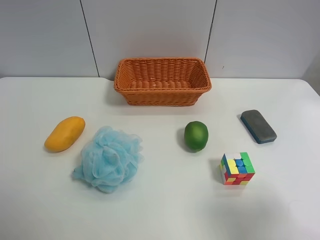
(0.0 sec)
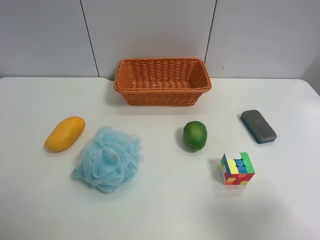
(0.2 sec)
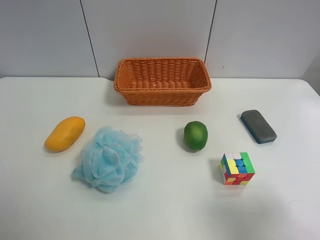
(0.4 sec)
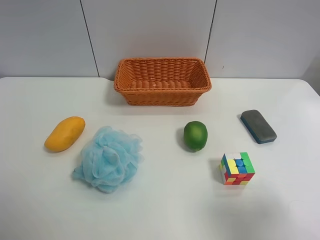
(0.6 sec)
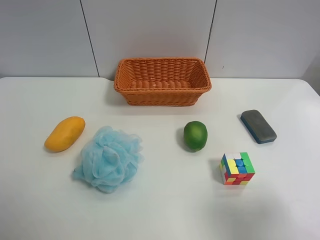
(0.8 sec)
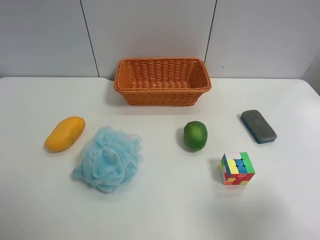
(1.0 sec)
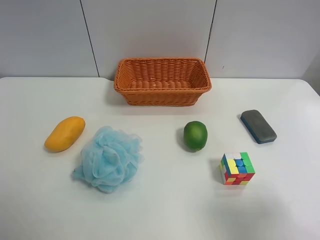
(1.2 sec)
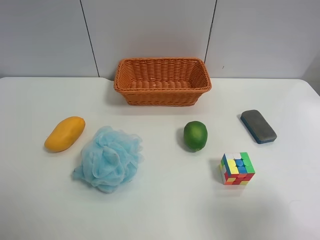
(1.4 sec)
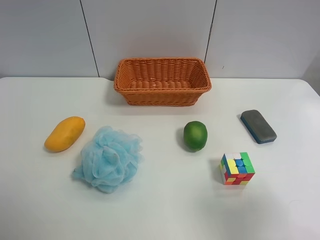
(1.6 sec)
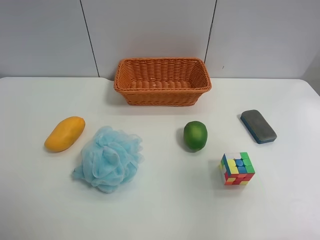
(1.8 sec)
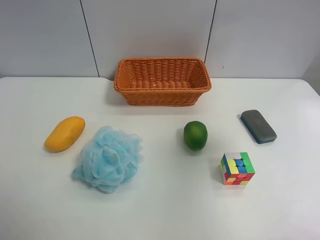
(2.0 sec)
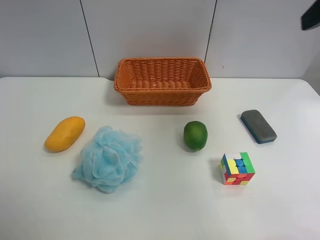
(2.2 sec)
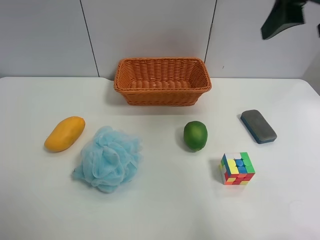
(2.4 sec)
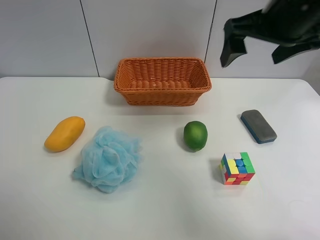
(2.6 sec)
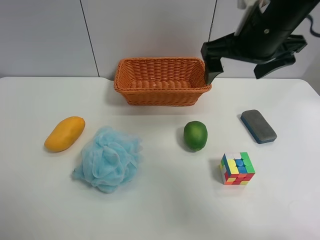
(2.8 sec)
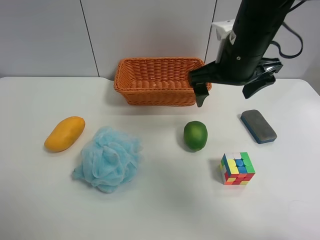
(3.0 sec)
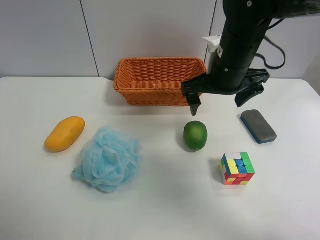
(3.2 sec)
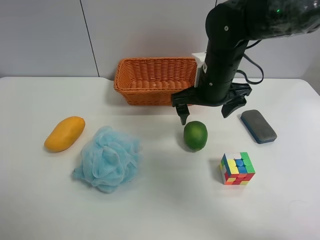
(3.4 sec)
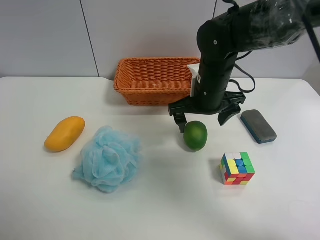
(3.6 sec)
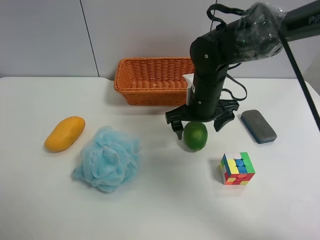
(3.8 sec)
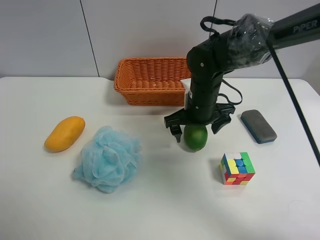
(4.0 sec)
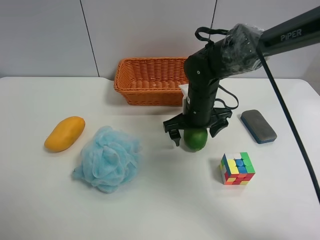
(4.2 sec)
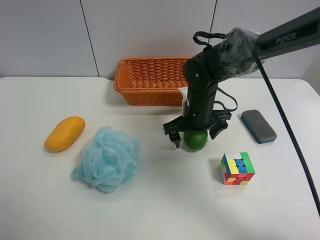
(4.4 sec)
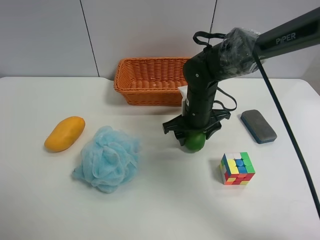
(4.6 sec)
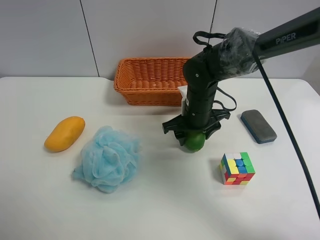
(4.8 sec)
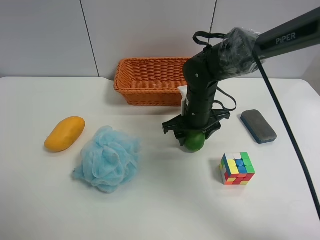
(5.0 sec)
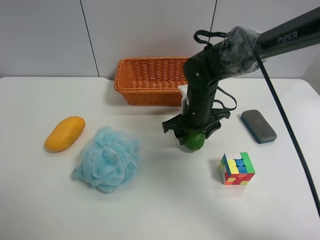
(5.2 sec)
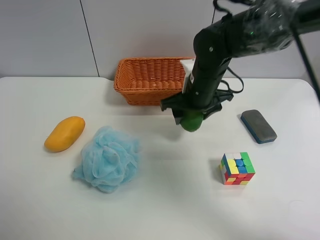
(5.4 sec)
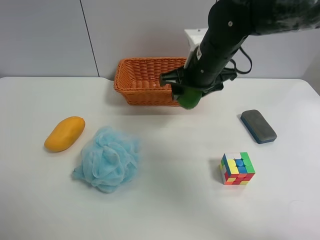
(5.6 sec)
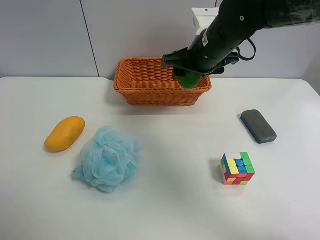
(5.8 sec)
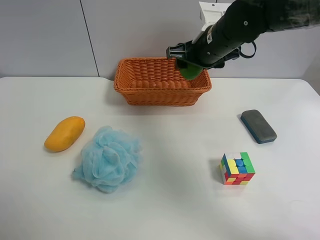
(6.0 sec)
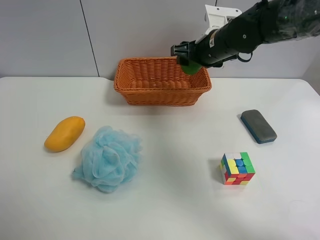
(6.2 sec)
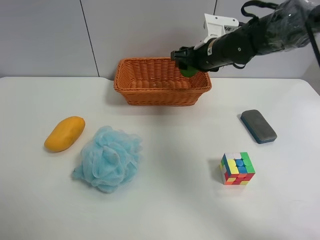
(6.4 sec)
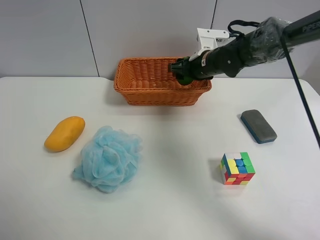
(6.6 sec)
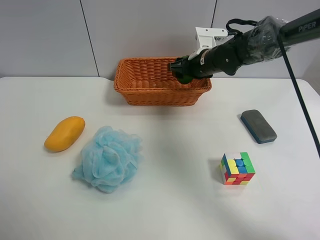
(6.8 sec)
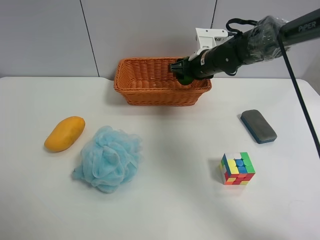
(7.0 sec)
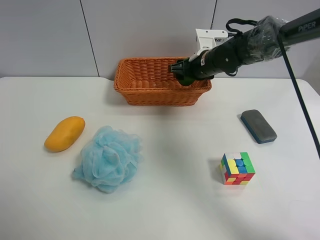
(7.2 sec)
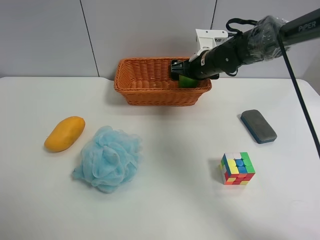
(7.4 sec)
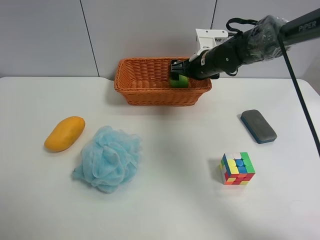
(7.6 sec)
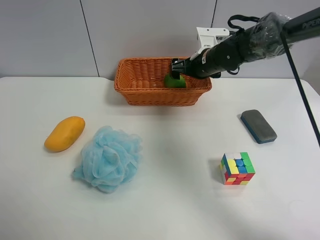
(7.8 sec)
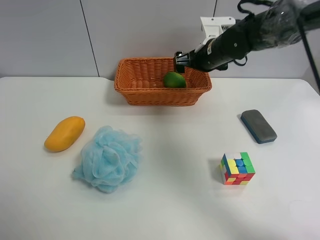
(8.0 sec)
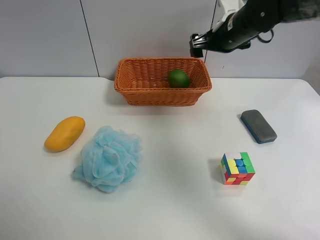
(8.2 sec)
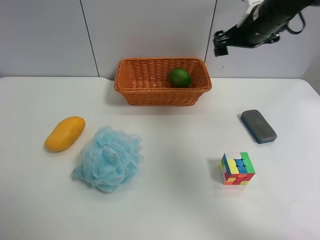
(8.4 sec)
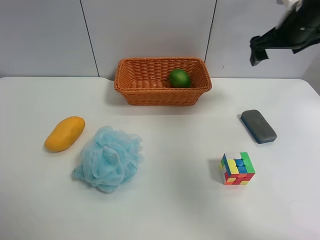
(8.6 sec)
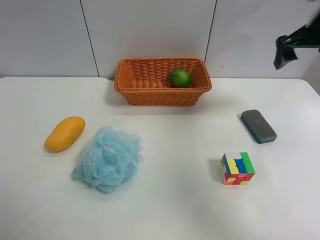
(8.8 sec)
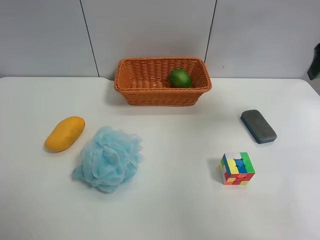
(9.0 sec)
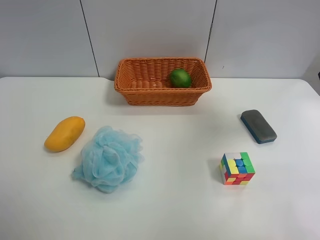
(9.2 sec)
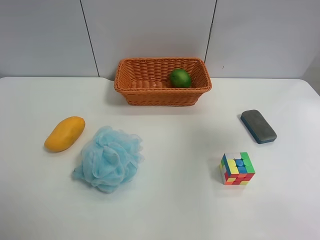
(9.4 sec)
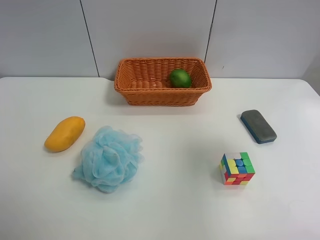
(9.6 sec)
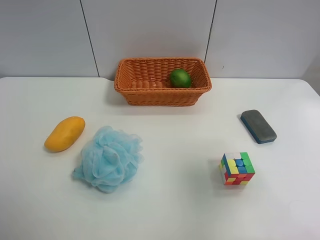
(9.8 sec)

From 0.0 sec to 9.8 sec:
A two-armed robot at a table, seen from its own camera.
Task of the whole recording: Randomly grab green lemon or mangoes from the table and put them in a basket.
Step, from 0.0 sec to 4.8 sec: Grasp the Lemon with the right gripper.
Step, from 5.0 sec to 8.0 sec: Place the Lemon into the basket with the right gripper.
From 0.0 sec to 1.4 sec: Both grippers stay put.
From 1.4 sec to 2.8 sec: The right gripper is displaced forward and to the left by some 30 cm.
From 2.8 sec to 4.2 sec: The right gripper moves downward, approximately 20 cm.
From 4.2 sec to 5.6 sec: The right gripper heads upward, covering about 10 cm, and closes.
From 5.6 sec to 7.0 sec: The right gripper moves forward and downward, about 15 cm.
From 7.0 sec to 8.4 sec: The right gripper travels upward and to the right by roughly 15 cm, and opens up.
From 8.4 sec to 9.8 sec: The right gripper shifts some 35 cm backward.

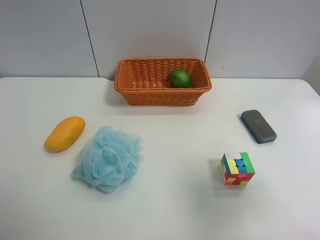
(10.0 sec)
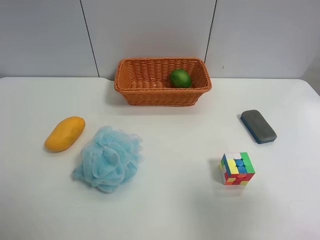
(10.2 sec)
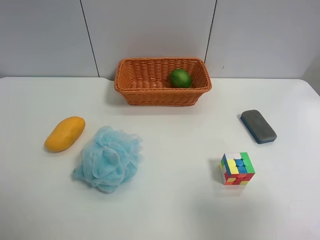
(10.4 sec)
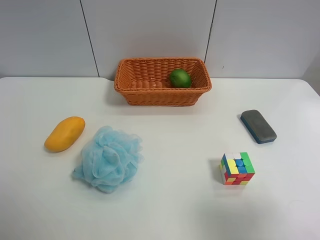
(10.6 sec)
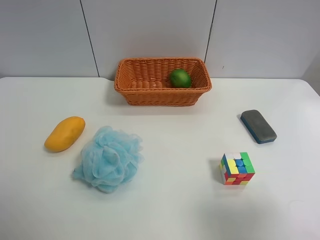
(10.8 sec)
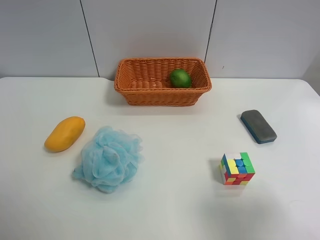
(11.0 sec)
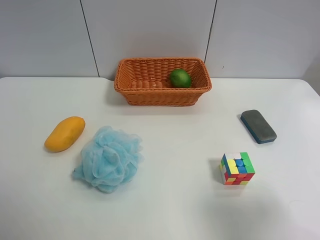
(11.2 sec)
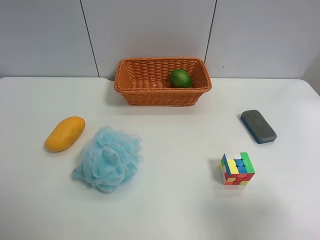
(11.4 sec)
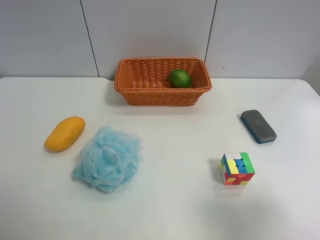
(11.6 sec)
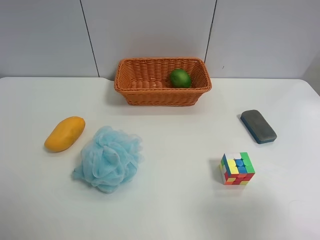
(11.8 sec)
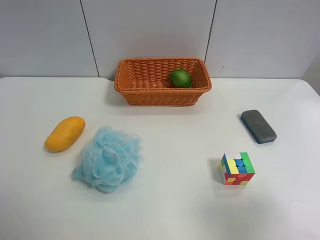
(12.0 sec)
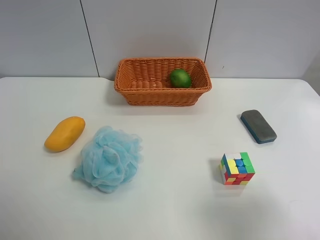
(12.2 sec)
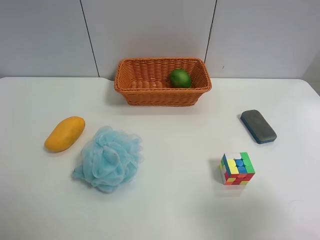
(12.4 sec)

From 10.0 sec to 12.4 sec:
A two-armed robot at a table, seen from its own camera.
Task of the whole recording: Randomly grab green lemon or mangoes from the table and put them in a basket.
From 10.0 sec to 11.2 sec: The grippers move only a little.
